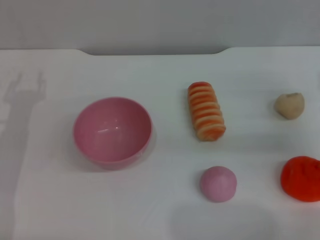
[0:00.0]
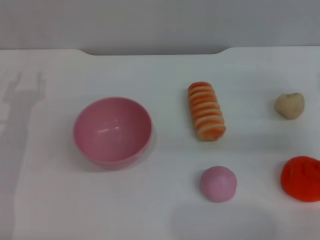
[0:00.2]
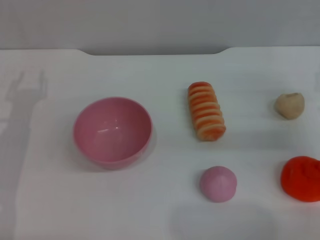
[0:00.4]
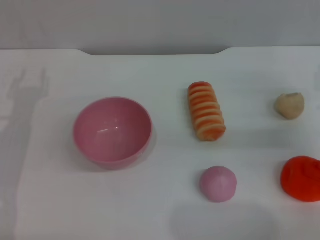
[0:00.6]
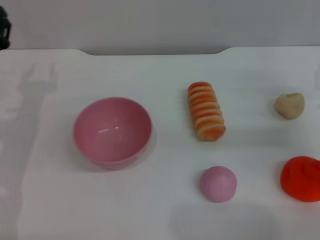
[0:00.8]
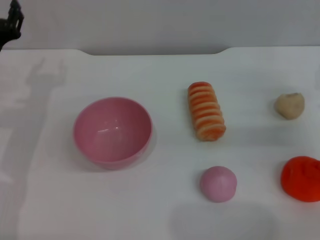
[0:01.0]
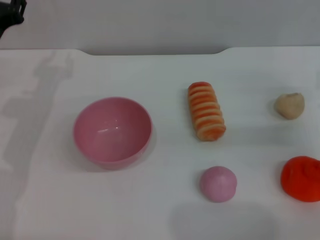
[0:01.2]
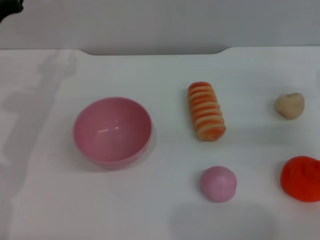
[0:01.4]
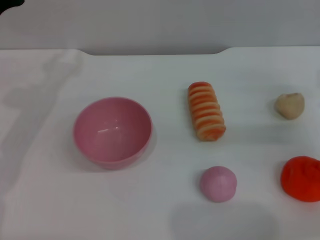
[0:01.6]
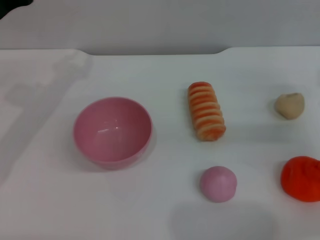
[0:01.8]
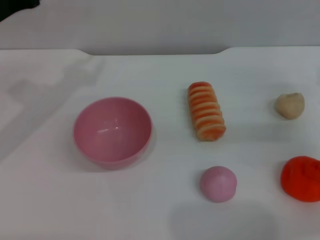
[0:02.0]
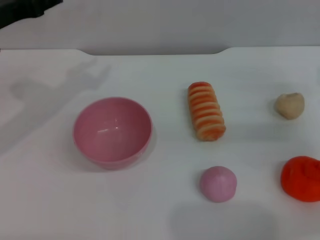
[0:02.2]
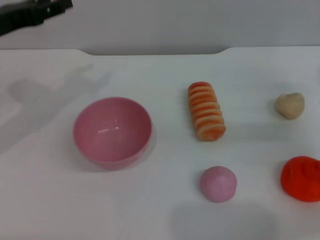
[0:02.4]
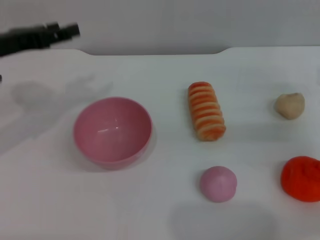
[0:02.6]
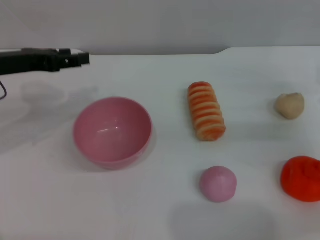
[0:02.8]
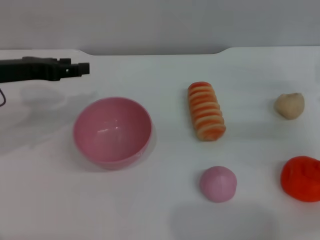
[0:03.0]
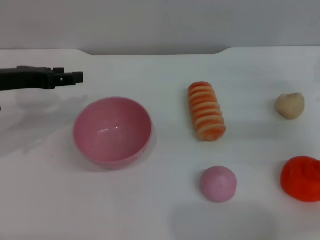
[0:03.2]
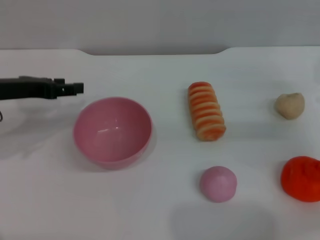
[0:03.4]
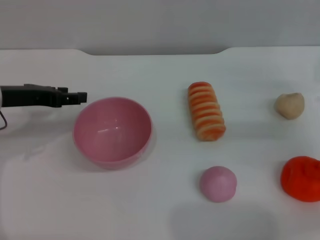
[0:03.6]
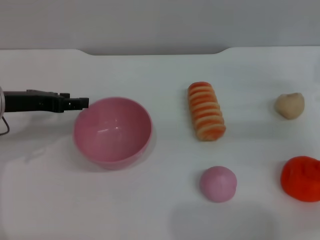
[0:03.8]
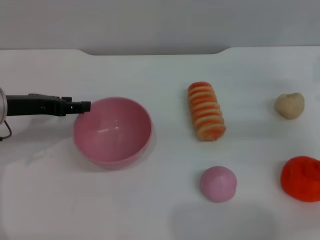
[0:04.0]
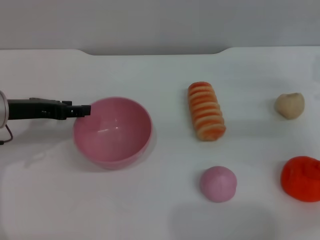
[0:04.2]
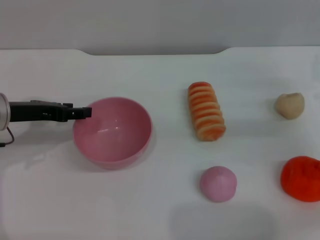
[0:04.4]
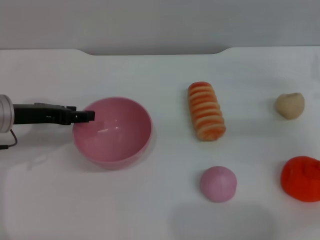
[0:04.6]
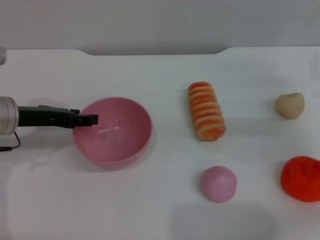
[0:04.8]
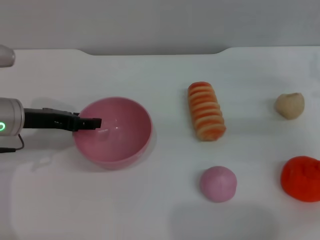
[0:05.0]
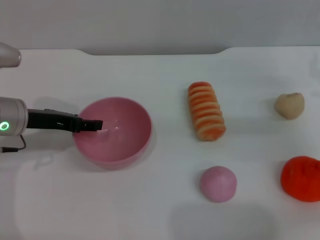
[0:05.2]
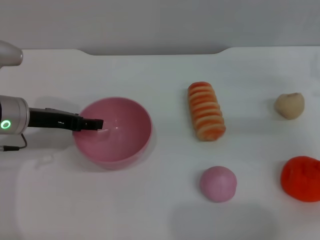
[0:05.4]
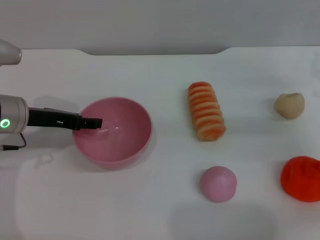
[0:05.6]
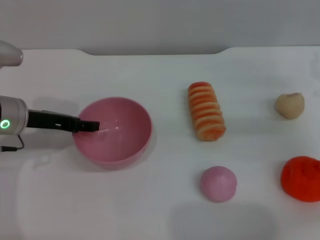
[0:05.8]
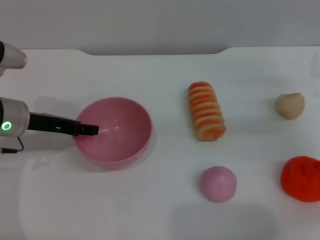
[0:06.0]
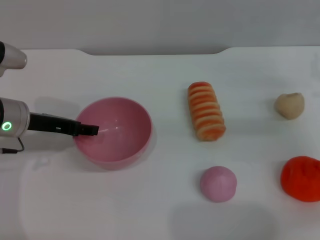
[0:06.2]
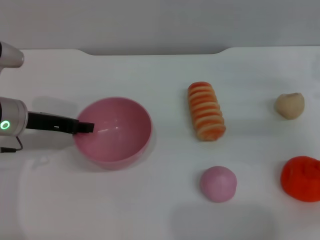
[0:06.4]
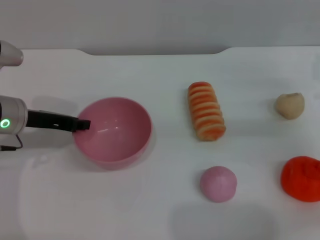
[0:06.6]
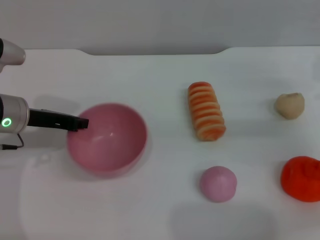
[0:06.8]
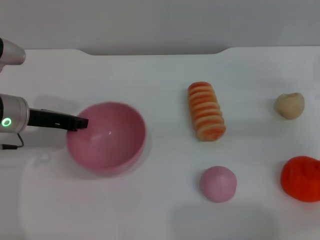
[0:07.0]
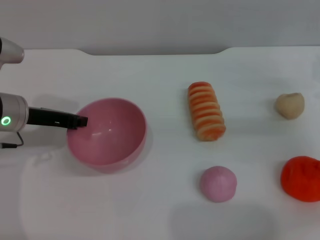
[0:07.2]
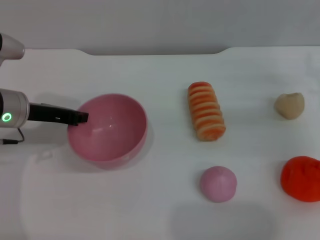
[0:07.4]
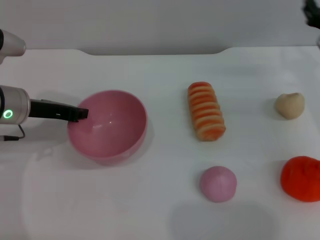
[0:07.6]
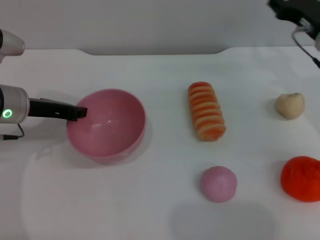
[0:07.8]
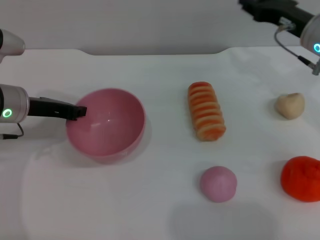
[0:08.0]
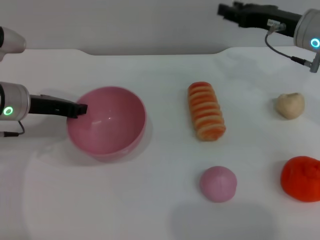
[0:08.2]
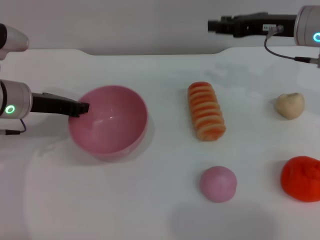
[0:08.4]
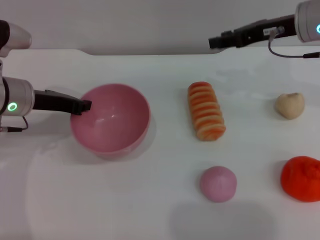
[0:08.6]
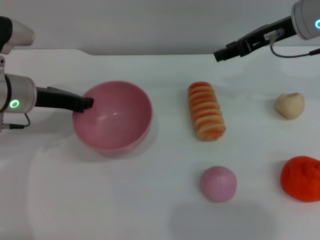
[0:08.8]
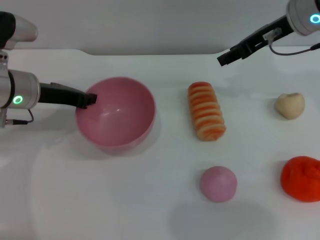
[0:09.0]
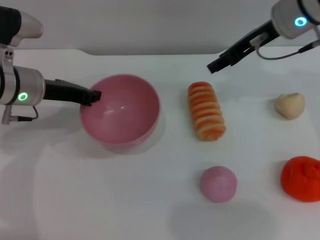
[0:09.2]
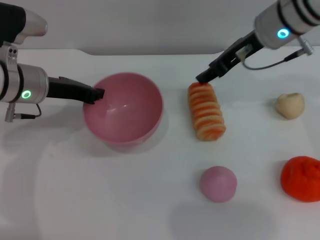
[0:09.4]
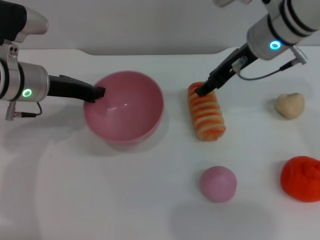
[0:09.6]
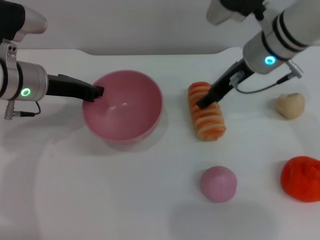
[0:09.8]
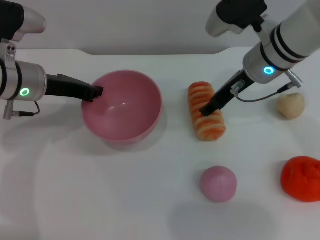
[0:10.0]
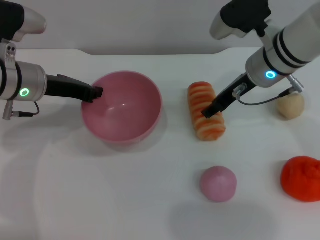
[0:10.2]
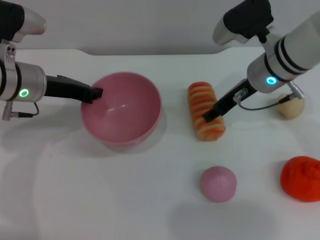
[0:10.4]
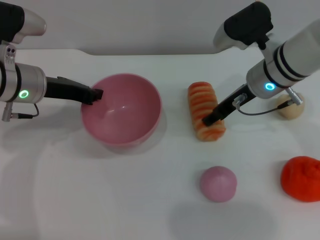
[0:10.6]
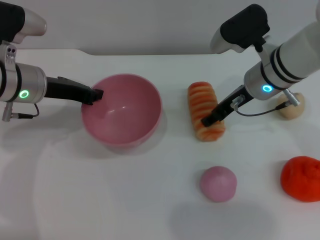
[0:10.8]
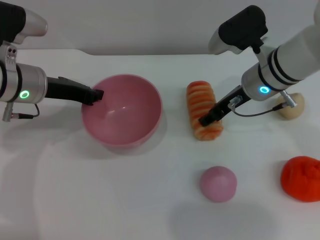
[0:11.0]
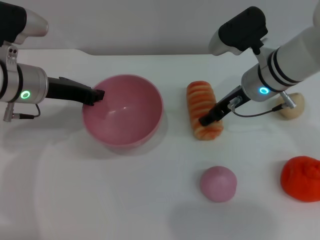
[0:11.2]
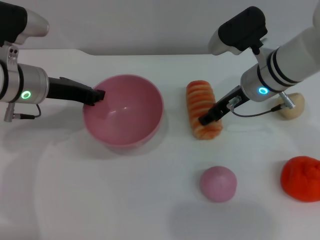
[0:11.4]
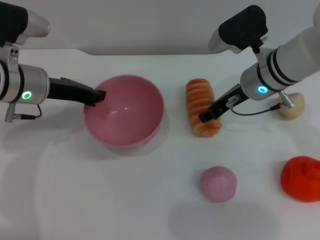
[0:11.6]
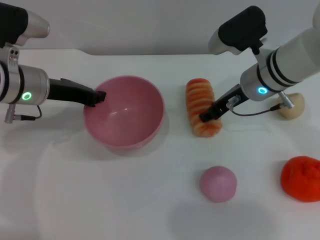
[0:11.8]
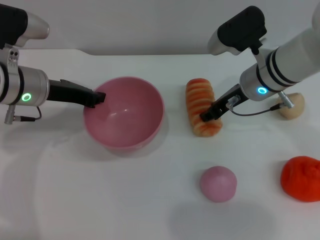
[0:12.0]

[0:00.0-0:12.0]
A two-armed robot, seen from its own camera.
Task of the whole recording: put the bread into the pink bowl and pour it out repeatedly.
Step, 0:00.0 to 0:09.0: Pick up the bowl with the left gripper.
0:01.6 to 0:03.0: The left gripper opens up.
0:03.0 to 0:04.4: The left gripper shifts roughly 5 cm downward.
0:04.4 to 0:06.0: The grippers move only a little.
0:06.0 to 0:07.6: The left gripper closes up.
0:07.6 to 0:09.0: The right gripper goes roughly 15 cm upward and to the left.
0:09.0 to 0:10.4: The right gripper moves downward, roughly 10 cm.
0:10.4 to 0:12.0: The grippers move only a little.

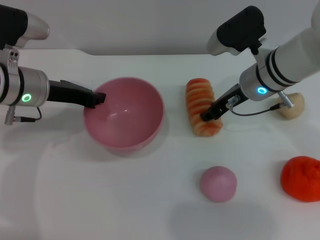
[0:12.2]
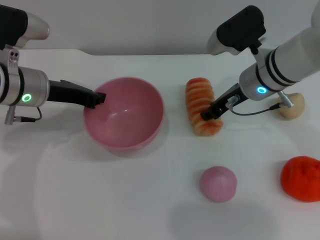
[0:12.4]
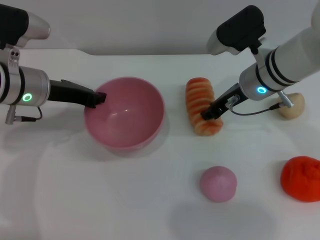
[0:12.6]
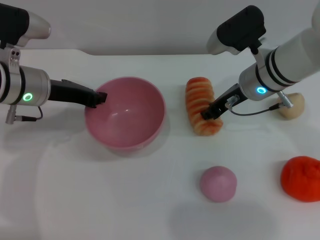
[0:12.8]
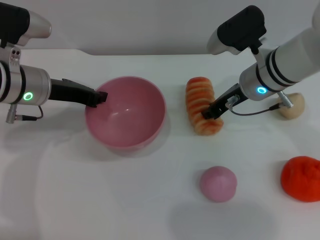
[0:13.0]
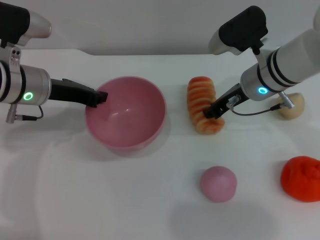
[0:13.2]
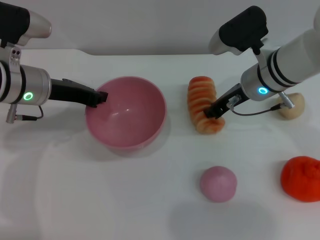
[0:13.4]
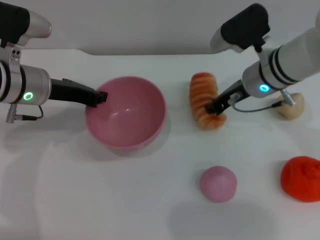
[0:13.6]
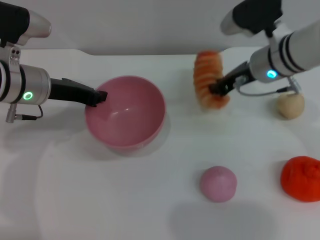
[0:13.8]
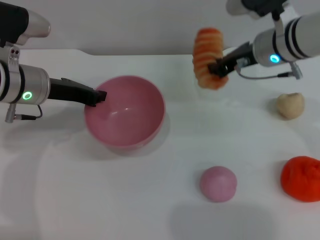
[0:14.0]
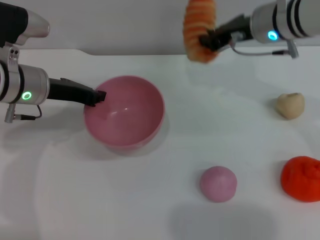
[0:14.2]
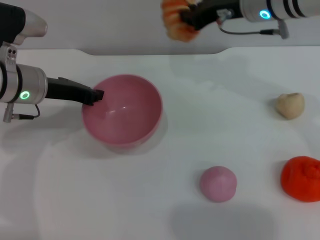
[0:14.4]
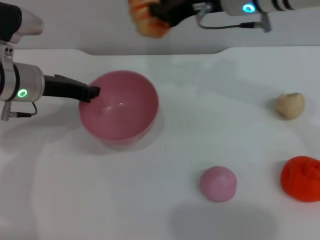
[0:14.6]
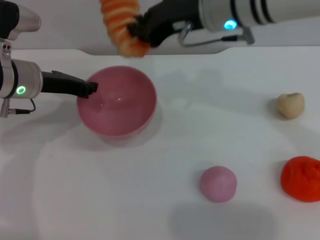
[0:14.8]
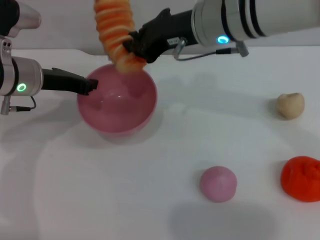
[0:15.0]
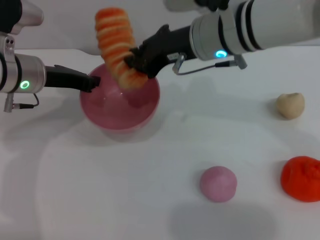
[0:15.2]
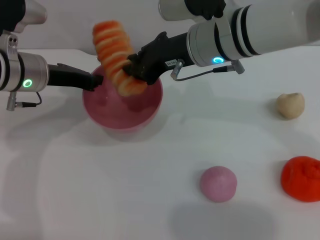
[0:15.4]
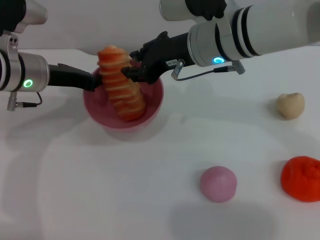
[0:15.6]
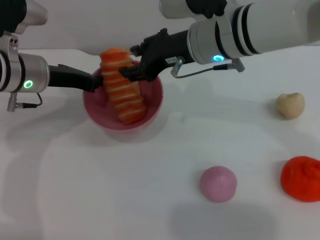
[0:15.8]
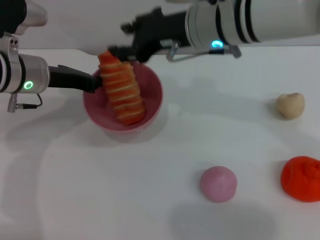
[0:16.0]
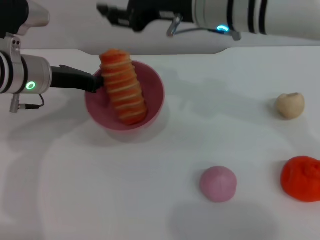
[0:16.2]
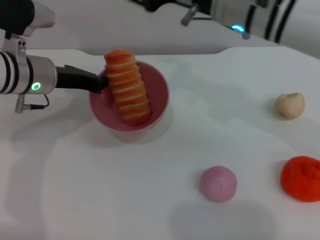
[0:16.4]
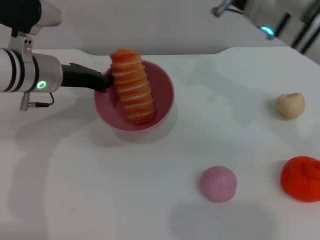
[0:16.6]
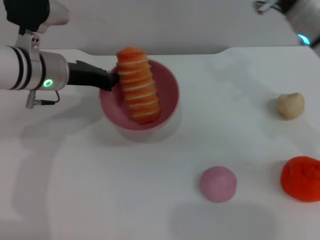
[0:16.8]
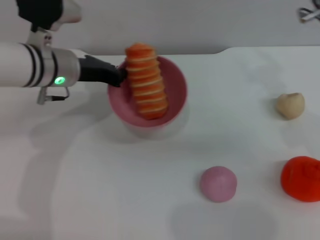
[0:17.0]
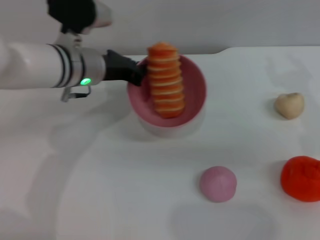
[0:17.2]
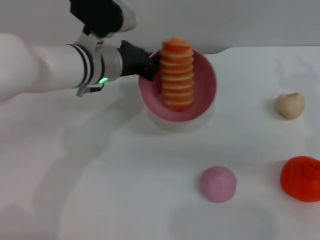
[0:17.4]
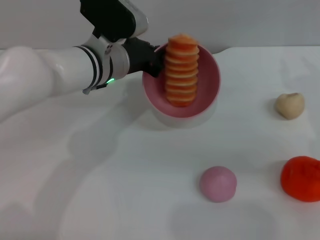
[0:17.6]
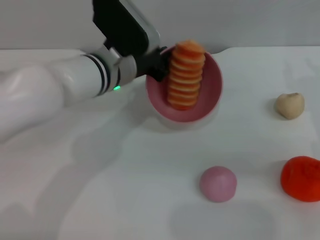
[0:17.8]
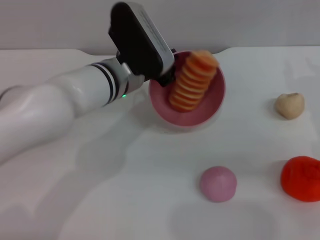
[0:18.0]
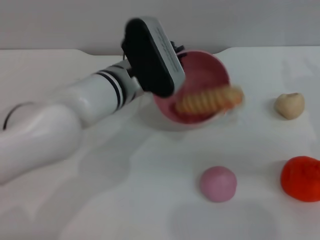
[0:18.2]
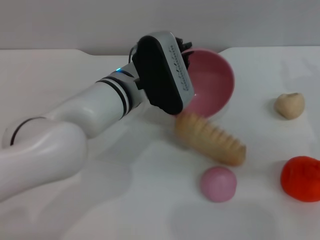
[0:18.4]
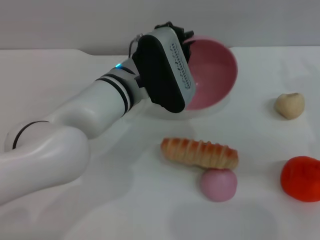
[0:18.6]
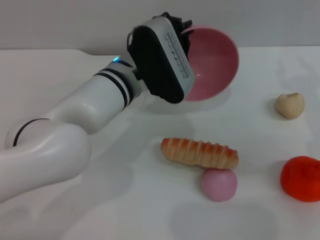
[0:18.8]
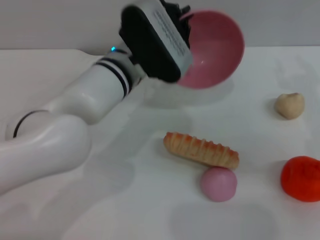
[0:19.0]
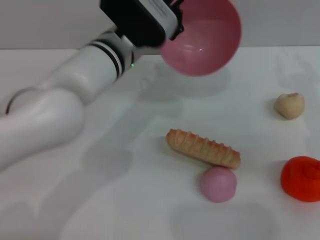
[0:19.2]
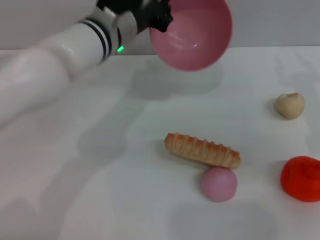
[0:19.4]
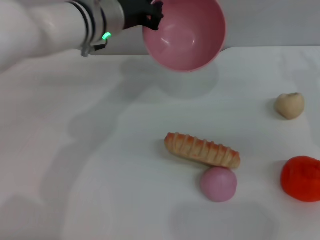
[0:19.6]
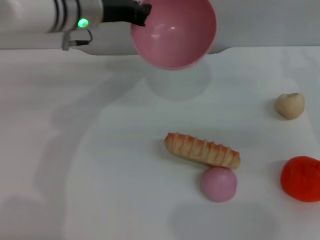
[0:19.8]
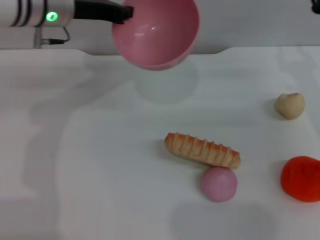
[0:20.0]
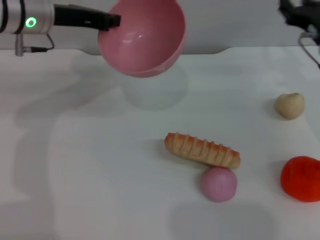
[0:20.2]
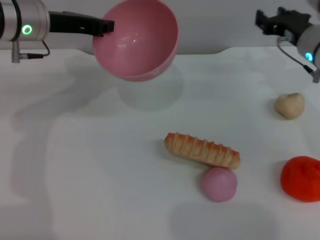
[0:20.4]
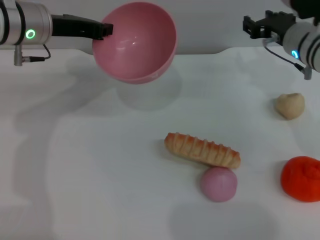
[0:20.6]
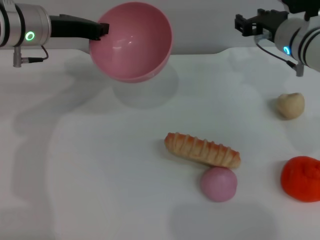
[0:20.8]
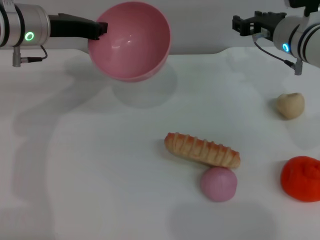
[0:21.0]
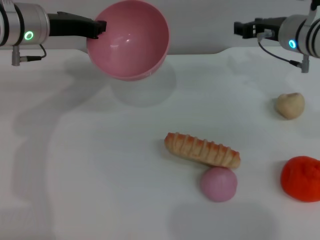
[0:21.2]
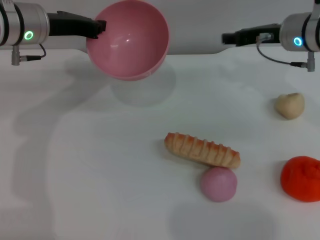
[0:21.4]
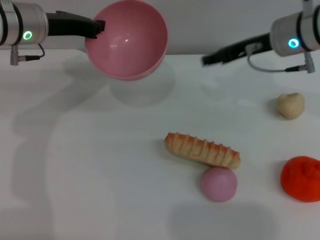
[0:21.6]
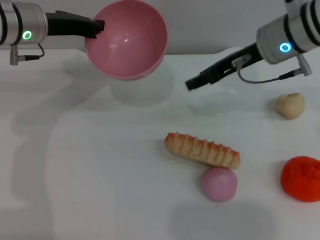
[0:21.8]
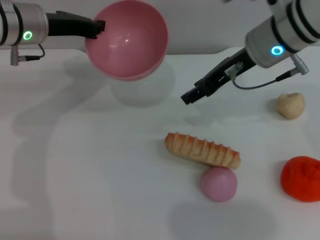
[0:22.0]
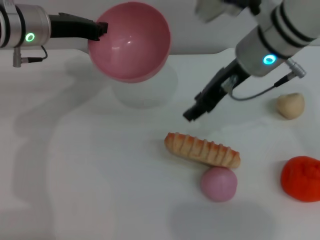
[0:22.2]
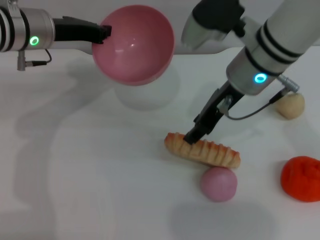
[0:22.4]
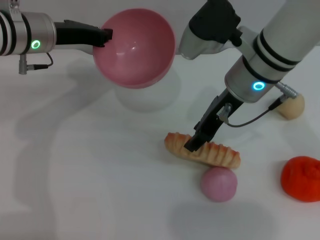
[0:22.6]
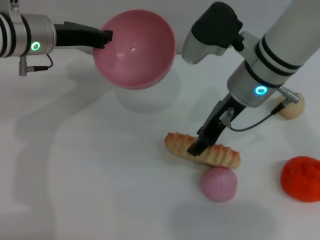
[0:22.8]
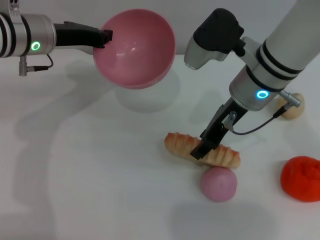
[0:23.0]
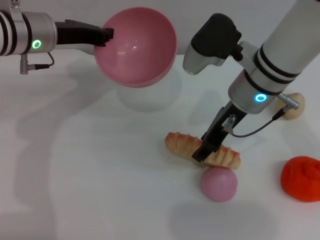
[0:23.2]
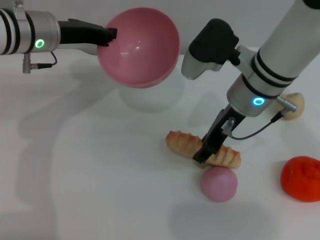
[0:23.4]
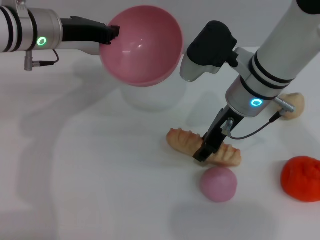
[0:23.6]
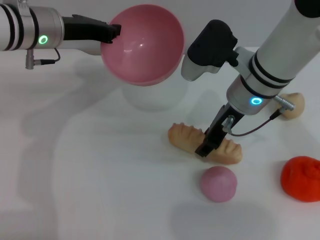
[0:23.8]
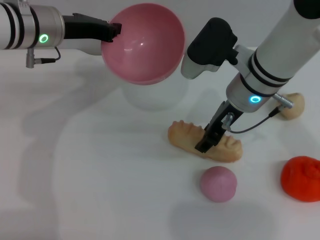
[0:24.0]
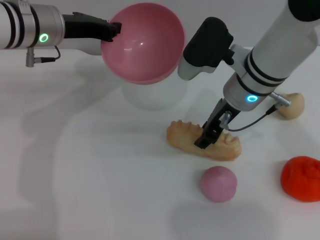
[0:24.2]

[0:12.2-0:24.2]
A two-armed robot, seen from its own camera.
Task of the whole recording: put the bread into the pink bowl and pour it out repeatedly.
Step, 0:14.0 to 0:16.0: Place the bread into the bowl.
Step, 0:16.2 to 0:18.8: Pour the bread out of the bowl.
0:12.2 to 0:13.8: The right gripper closes its fingers.
0:13.8 to 0:15.2: The right gripper moves to the left and upward, some 10 cm.
0:15.2 to 0:16.6: The right gripper heads to the right, covering some 5 cm, and opens its fingers.
0:16.6 to 0:18.2: The left gripper goes approximately 15 cm to the right. The right gripper goes some 15 cm to the right, downward and backward.
0:18.2 to 0:19.8: The left gripper travels upward, forward and to the left by some 10 cm.
0:19.8 to 0:21.2: The left gripper heads to the left, covering roughly 10 cm, while the right gripper is displaced forward and to the left by approximately 10 cm.
0:21.2 to 0:22.6: The right gripper travels to the left and backward by roughly 10 cm.
0:22.6 to 0:24.2: The grippers make only small movements.
